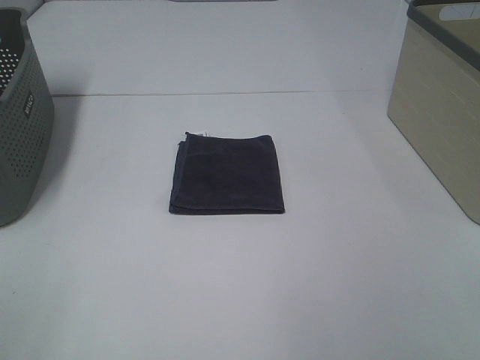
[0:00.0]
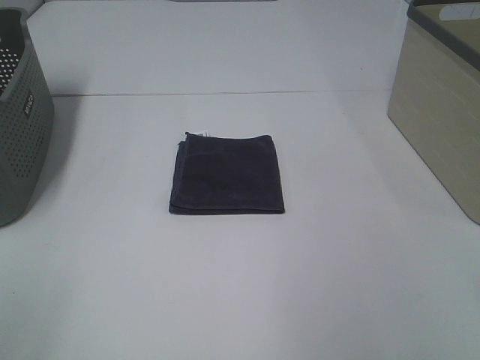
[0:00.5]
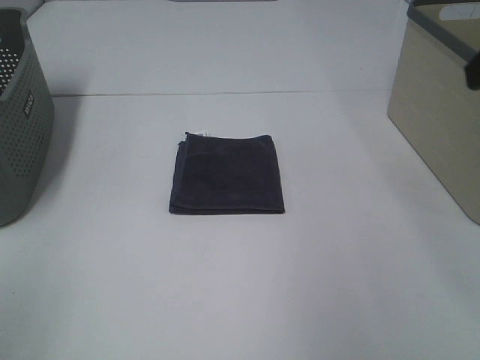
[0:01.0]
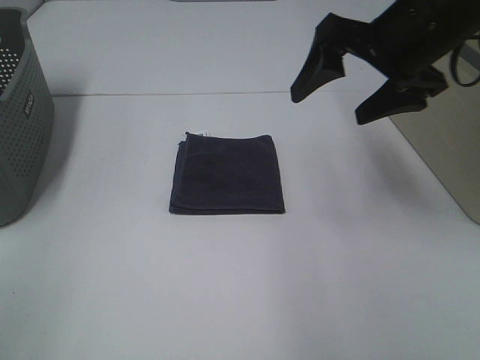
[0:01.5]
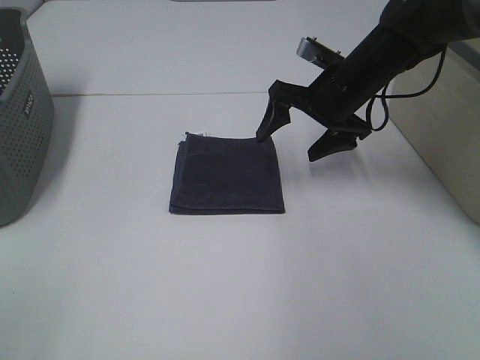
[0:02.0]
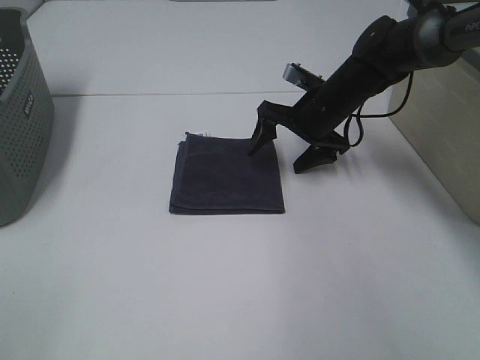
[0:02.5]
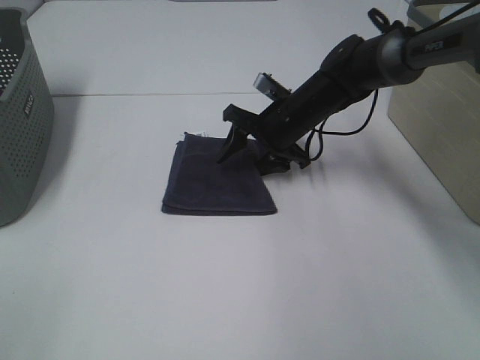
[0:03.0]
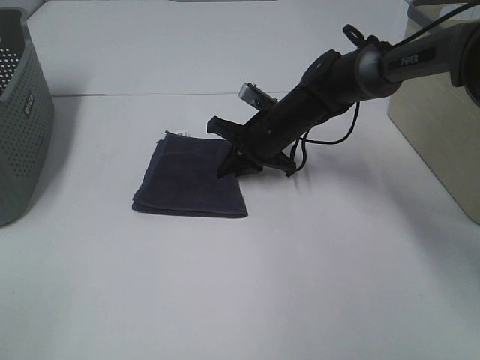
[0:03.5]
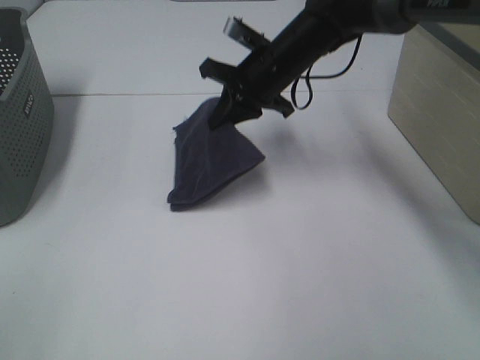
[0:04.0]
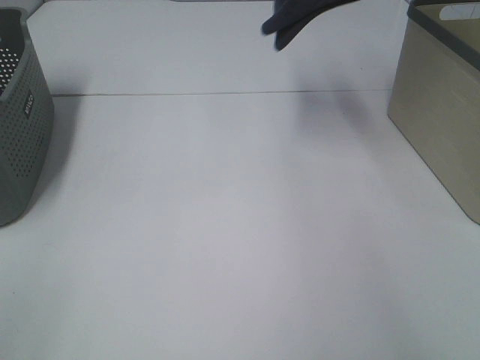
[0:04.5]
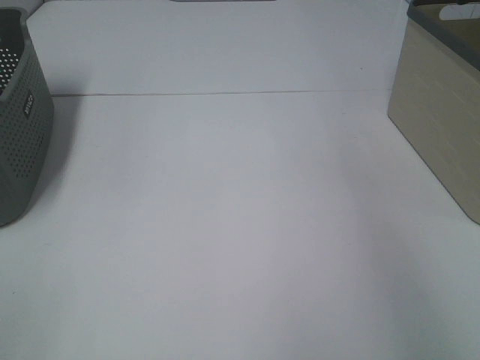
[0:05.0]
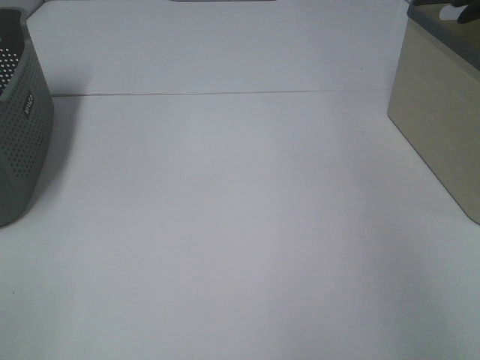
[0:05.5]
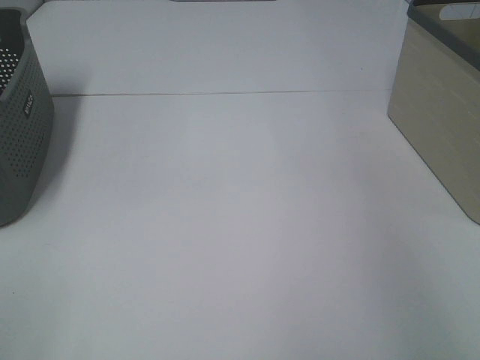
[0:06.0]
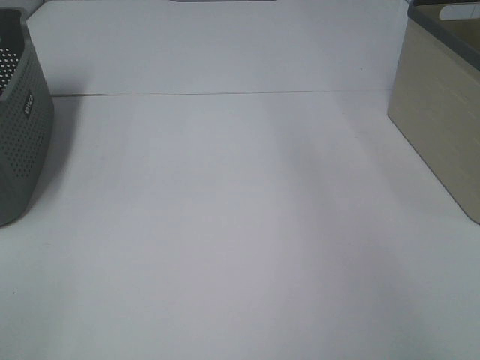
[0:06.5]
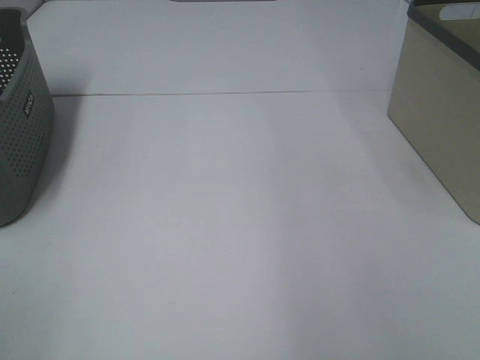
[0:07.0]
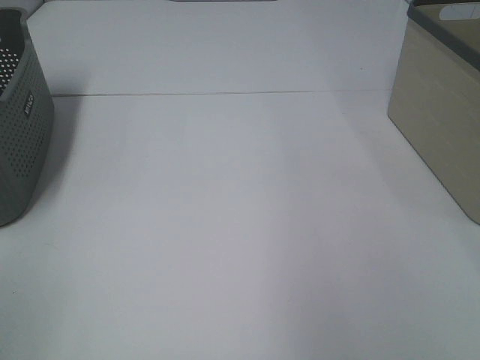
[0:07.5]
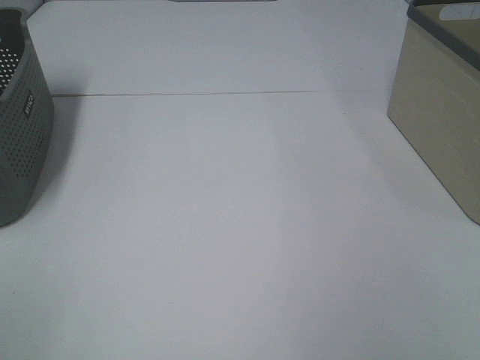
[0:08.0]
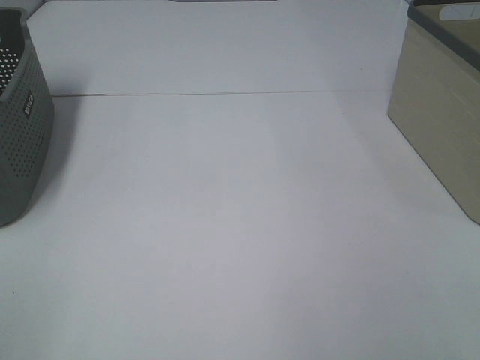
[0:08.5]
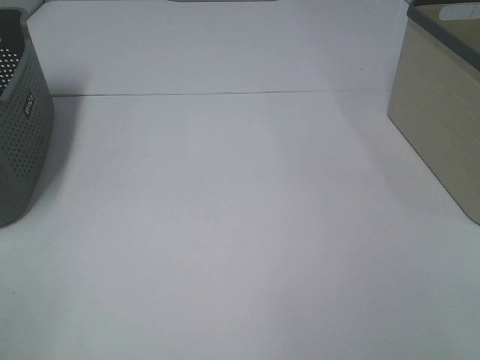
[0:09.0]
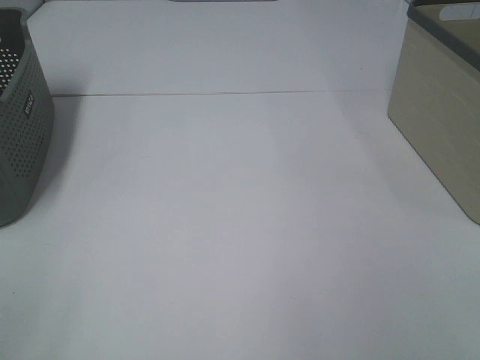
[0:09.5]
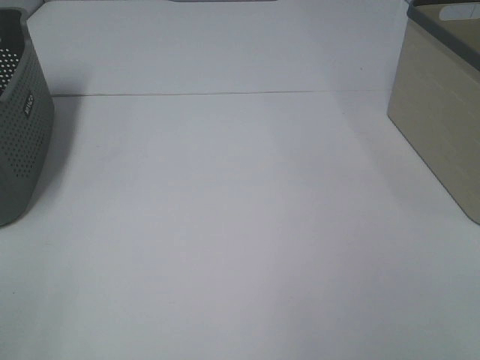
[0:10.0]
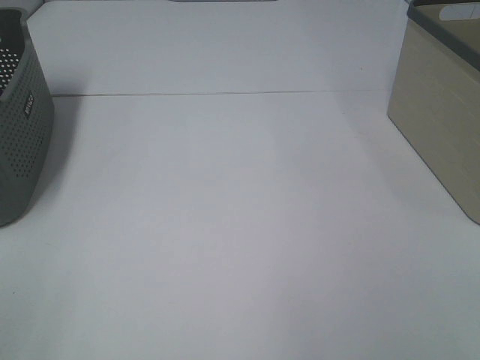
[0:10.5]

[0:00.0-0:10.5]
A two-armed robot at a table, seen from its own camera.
Step, 0:00.0 to 0:03.0: Right hand: grab the folded grey towel.
Step, 0:03.5 to 0:05.5: Right hand: place the grey towel in right basket.
0:00.0 to 0:02.0: The right gripper heads forward, covering roughly 40 cm.
0:02.0 to 0:04.0: The right gripper heads to the left, covering approximately 10 cm, travels downward and back again, some 10 cm each way, and closes up.
0:04.0 to 0:06.5: The right gripper heads upward and to the right, covering roughly 35 cm, and opens its fingers.

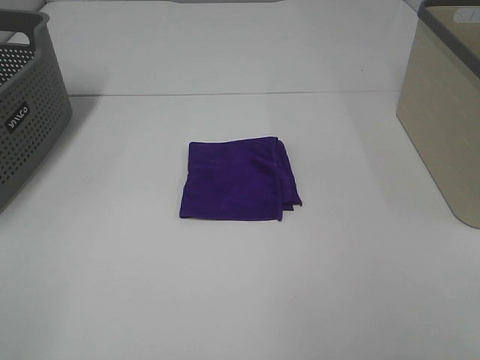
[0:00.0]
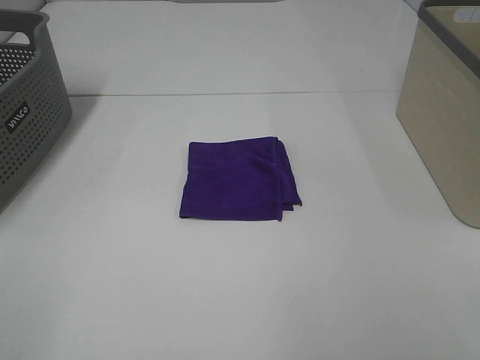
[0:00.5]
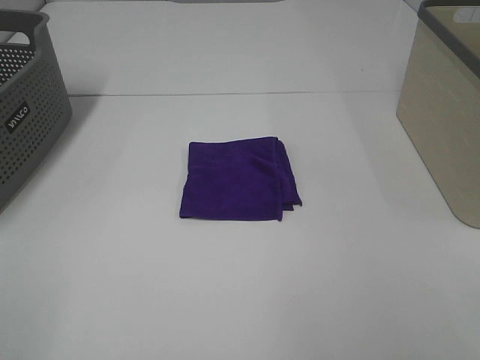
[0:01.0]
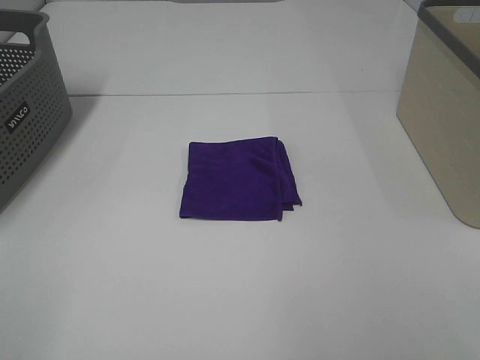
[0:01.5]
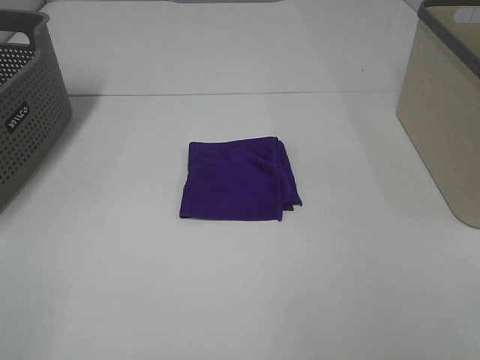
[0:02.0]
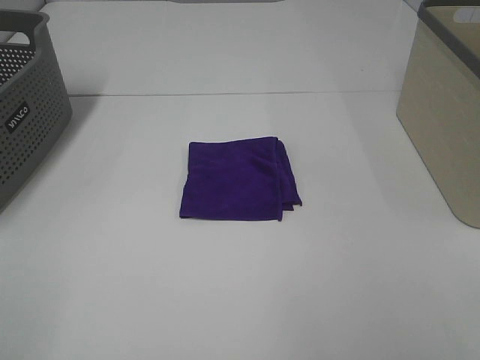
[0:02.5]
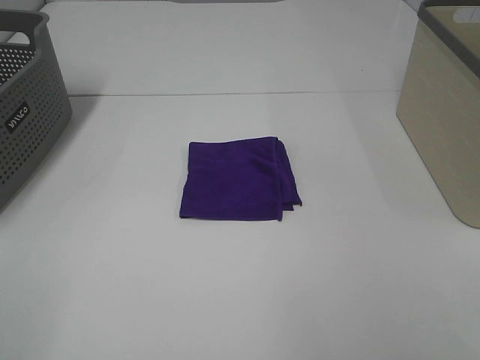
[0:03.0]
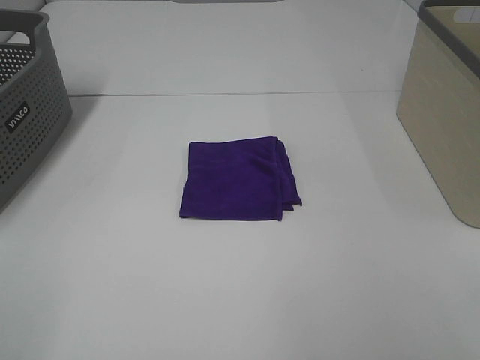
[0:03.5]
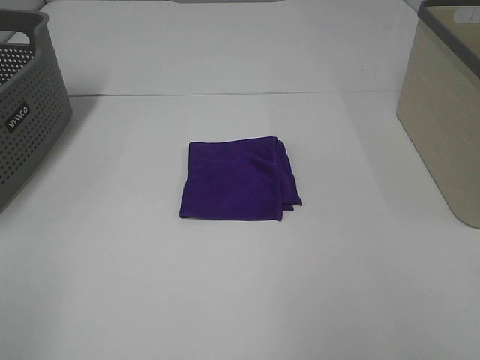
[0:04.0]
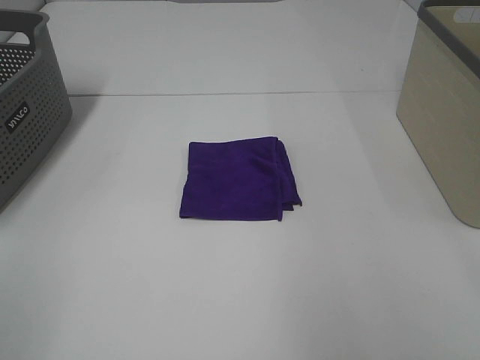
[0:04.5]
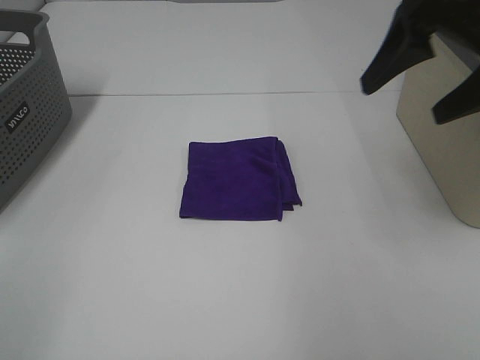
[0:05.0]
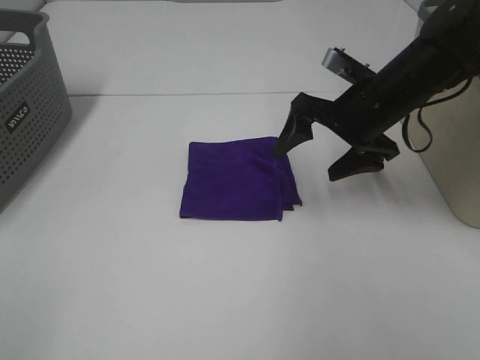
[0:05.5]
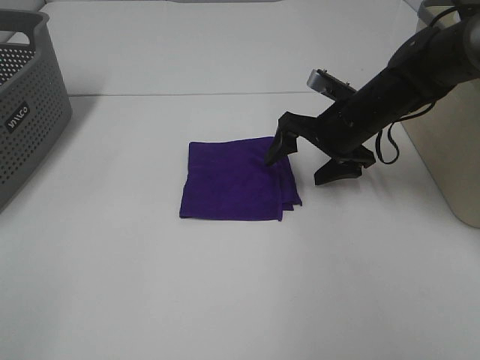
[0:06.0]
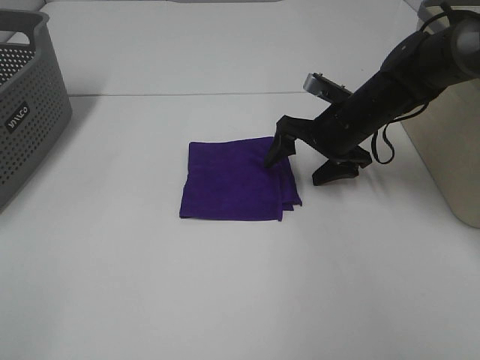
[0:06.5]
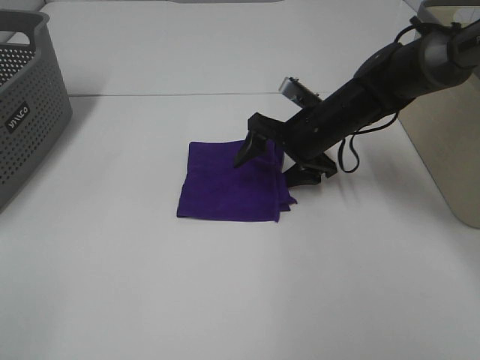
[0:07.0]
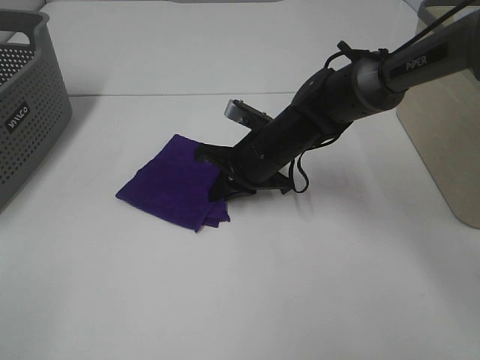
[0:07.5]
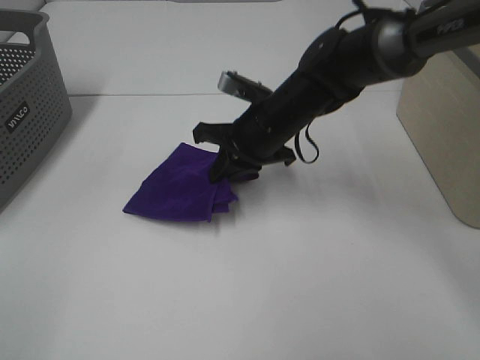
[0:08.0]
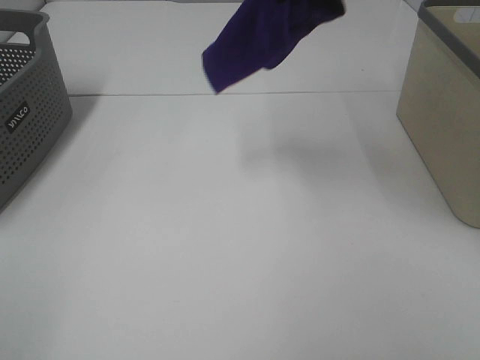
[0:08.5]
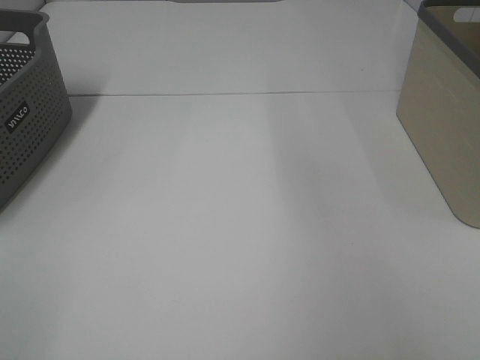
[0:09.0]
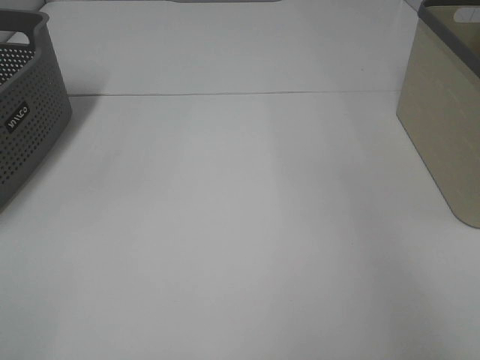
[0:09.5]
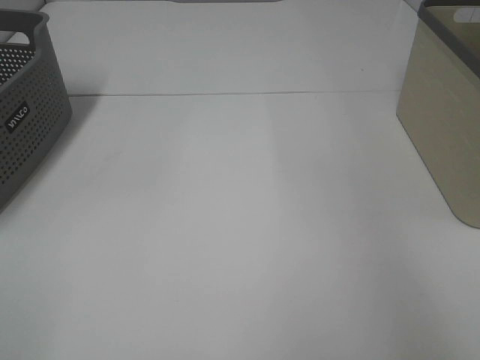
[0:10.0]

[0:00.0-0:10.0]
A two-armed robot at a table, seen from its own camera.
Step, 0:00.0 to 0:07.0: Right hand: grab the folded purple towel.
Step, 0:07.5 to 0:09.5: Right hand: place the purple towel in right basket.
0:00.0 to 0:02.0: The two grippers keep their place.
0:04.0 to 0:06.0: The right gripper shifts about 40 cm forward and downward.
0:06.0 to 0:08.0: The right gripper travels to the left by roughly 10 cm, and closes its fingers.
0:08.0 to 0:10.0: The right gripper is displaced to the right and upward by about 40 cm, and opens up.
